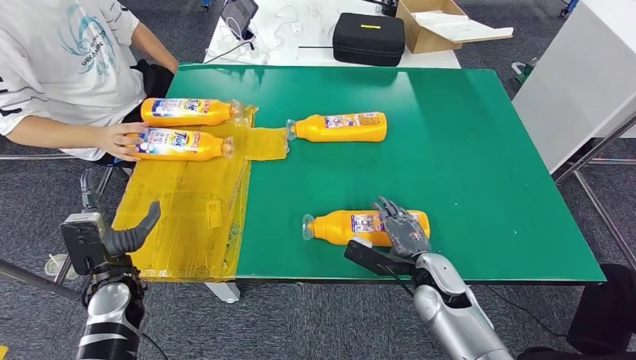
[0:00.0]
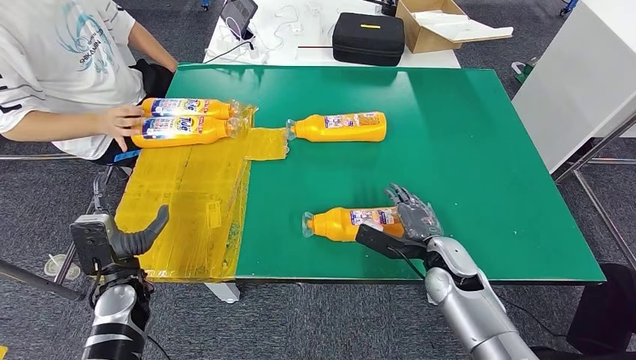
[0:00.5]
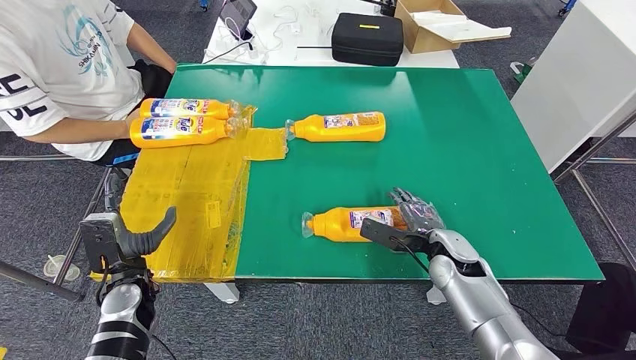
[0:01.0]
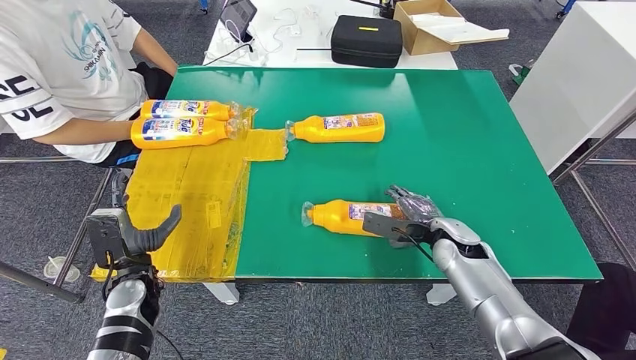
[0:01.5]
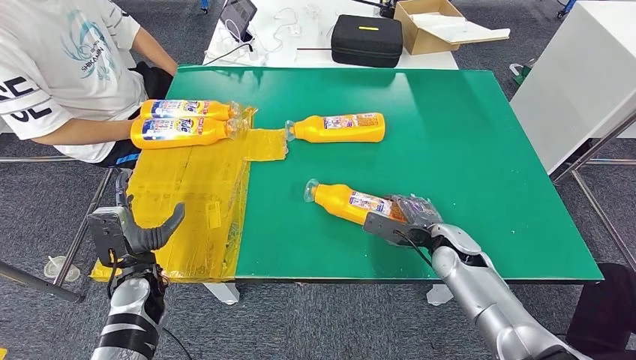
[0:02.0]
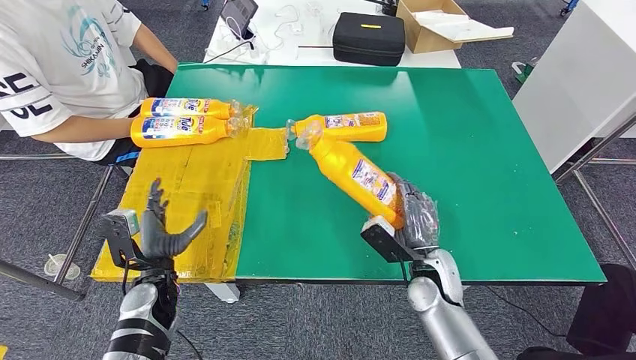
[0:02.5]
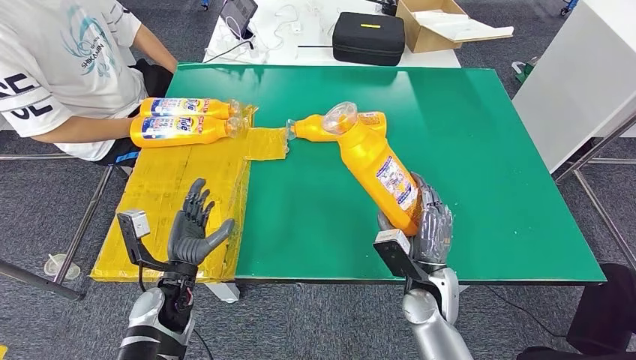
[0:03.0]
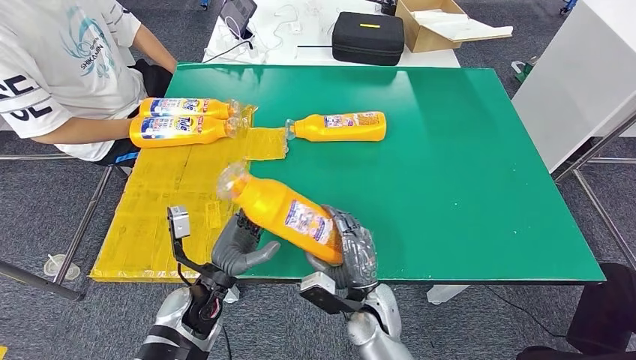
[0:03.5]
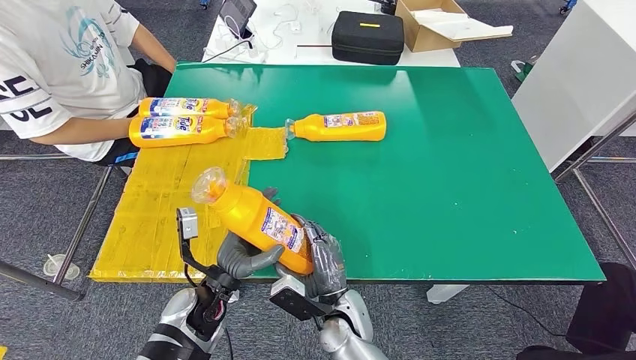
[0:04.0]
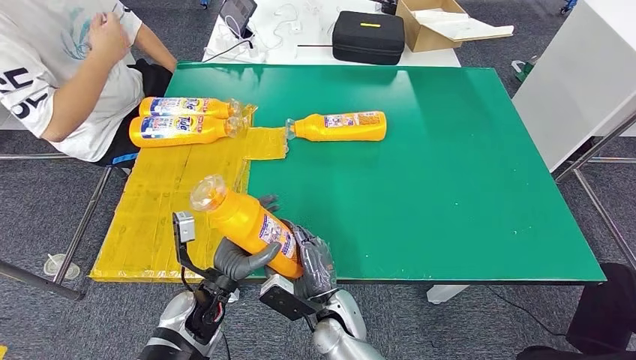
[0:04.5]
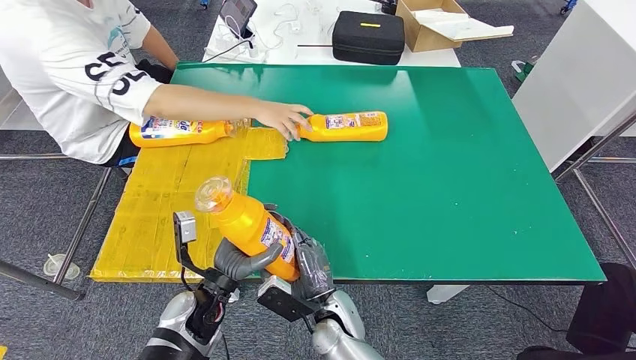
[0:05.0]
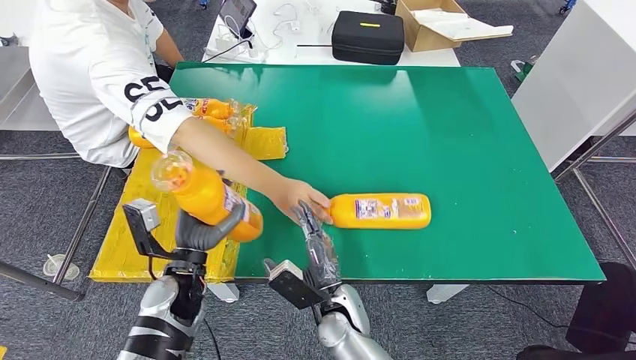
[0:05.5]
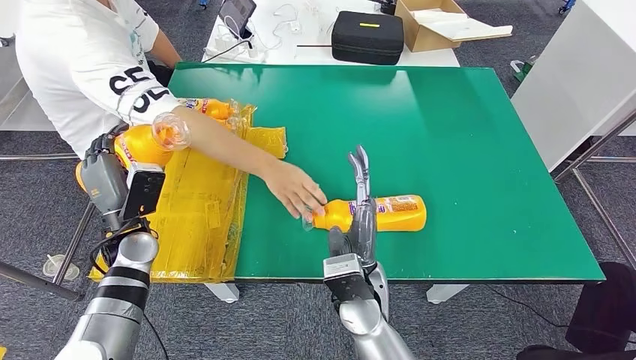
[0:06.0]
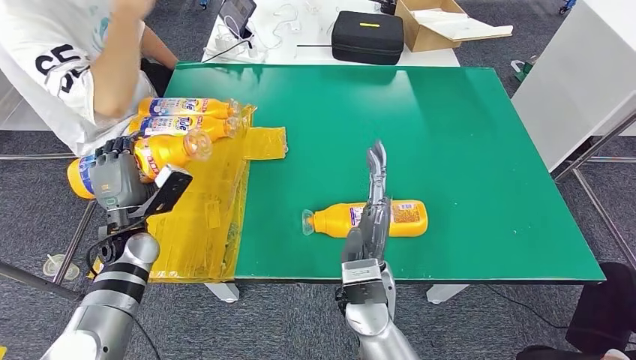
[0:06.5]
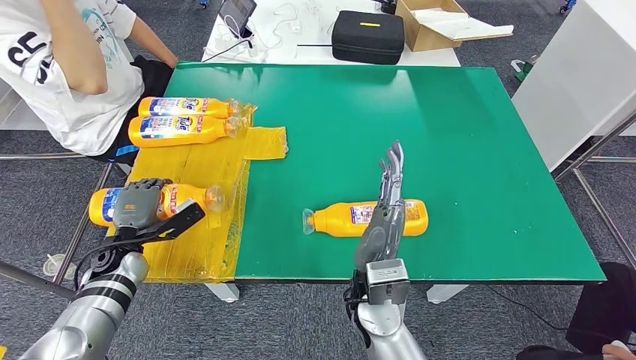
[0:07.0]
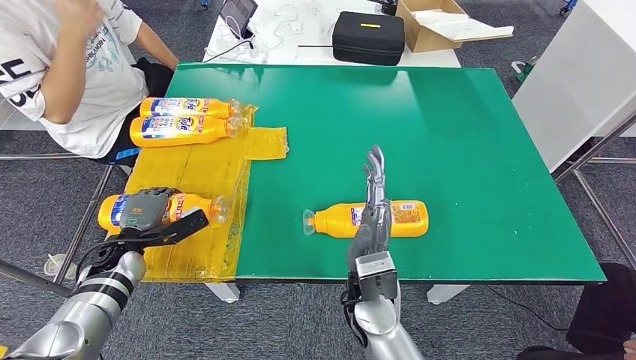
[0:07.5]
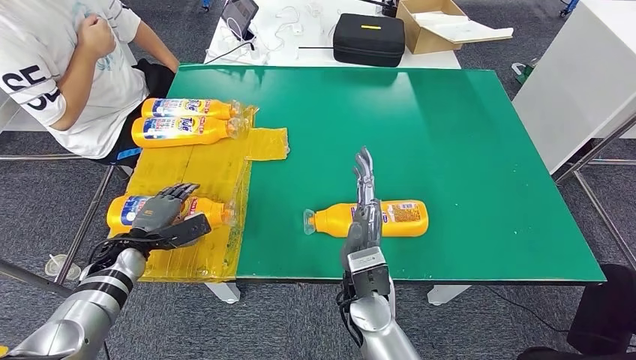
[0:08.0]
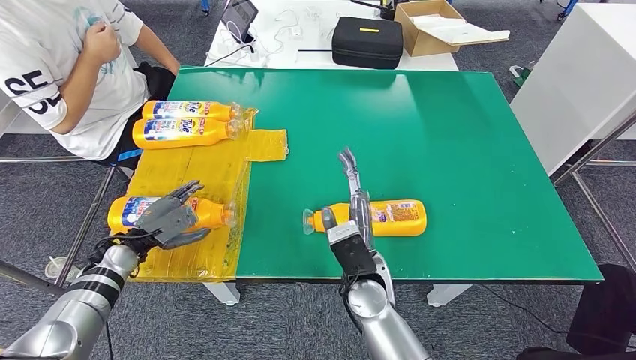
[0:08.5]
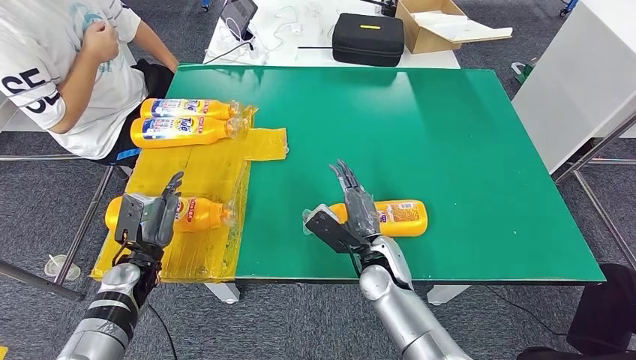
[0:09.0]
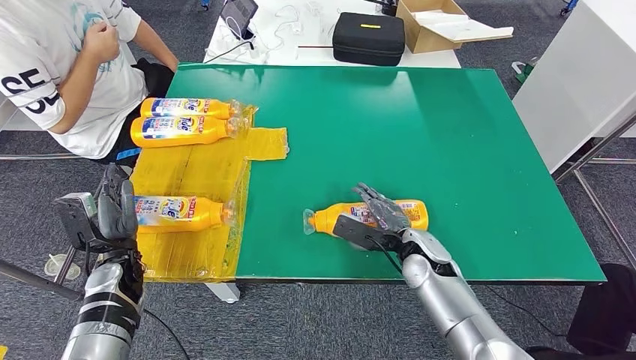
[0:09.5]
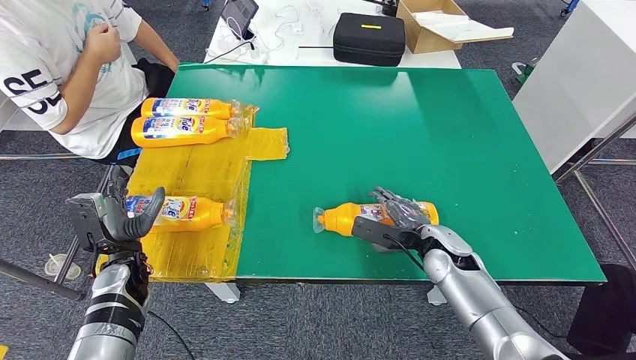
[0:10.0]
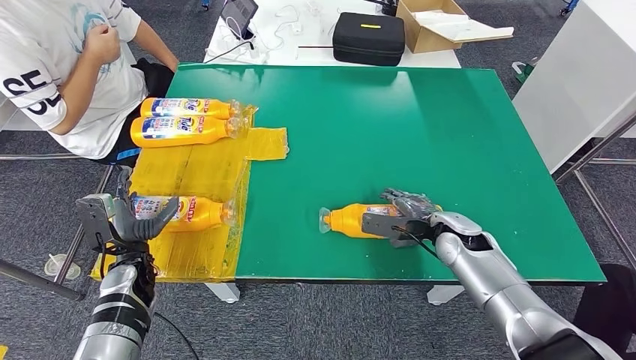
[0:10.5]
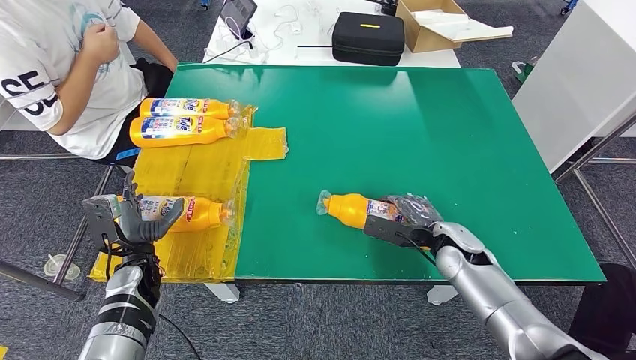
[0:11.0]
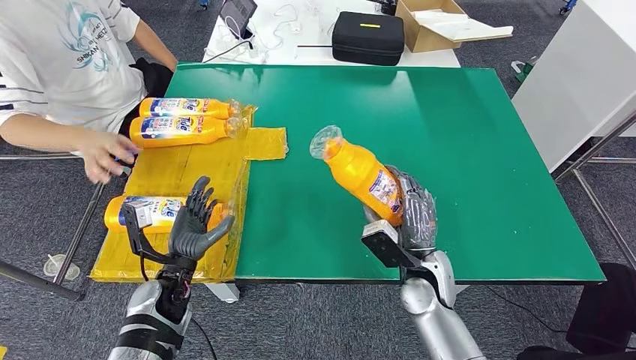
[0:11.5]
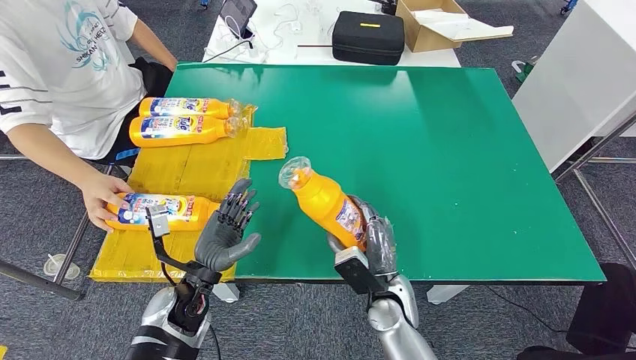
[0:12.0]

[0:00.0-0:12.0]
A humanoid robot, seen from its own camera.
Step, 0:00.0 to 0:03.0: Pick up the fast-moving consumer goods bottle from the table.
Step, 0:03.5 to 0:07.0: Flip the fast-moving consumer goods bottle to the front side.
Step, 0:07.5 to 0:11.0: Pick up the fast-moving consumer goods bottle from the table.
0:08.0 to 0:10.0: The right hand moves to the right and forward, about 20 cm; the left hand shifts by approximately 5 cm.

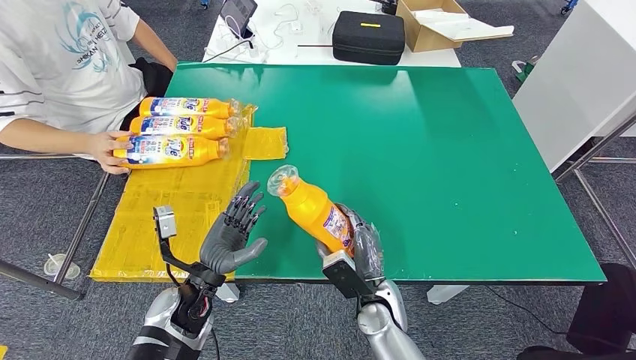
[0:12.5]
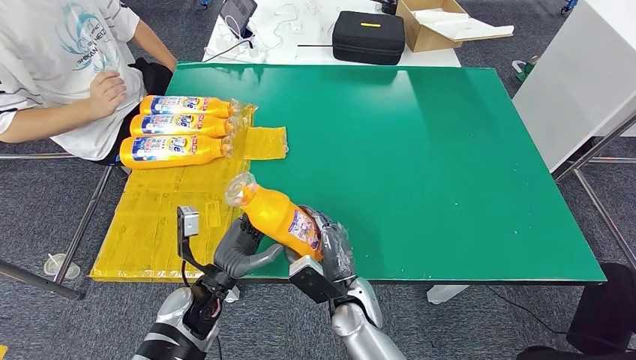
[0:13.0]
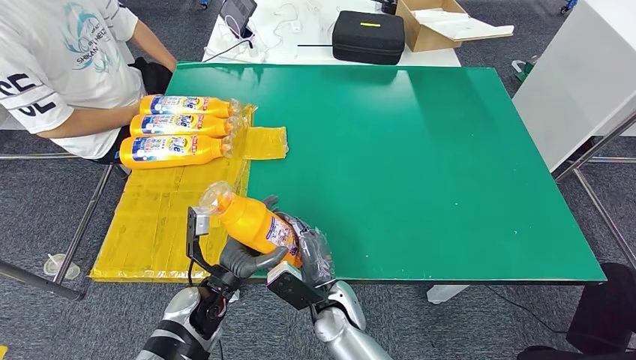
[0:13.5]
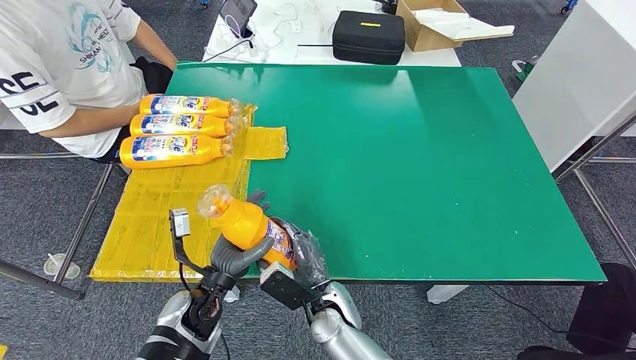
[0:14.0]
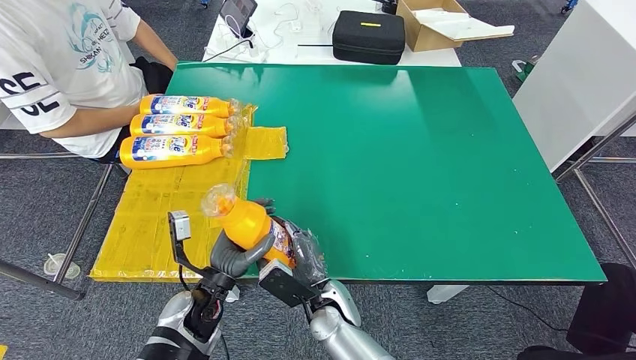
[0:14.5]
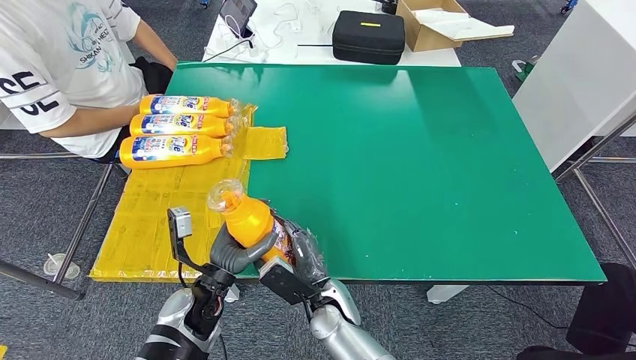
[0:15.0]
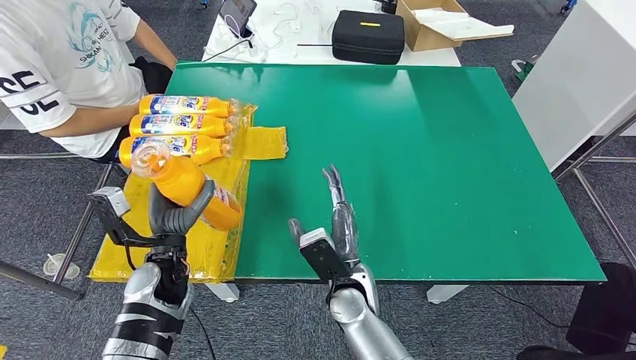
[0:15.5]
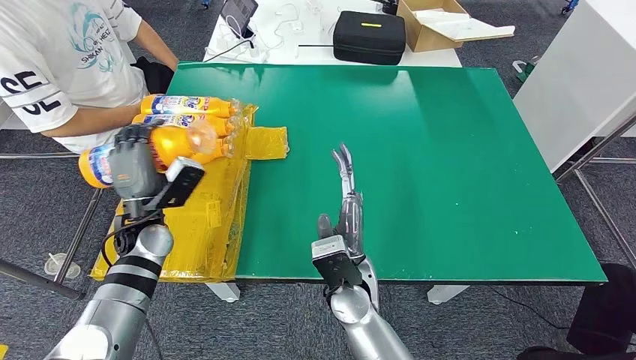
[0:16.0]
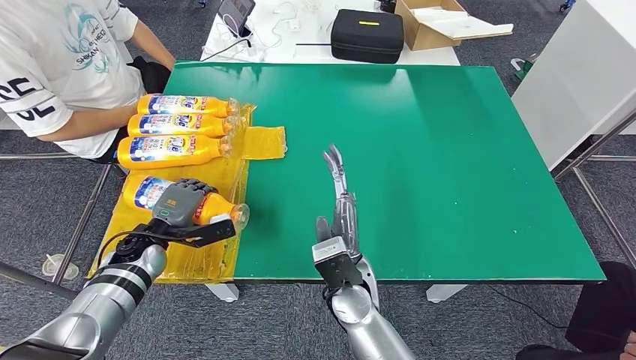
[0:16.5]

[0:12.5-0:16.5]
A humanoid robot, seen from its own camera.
Step, 0:12.5 to 0:16.5: Flip the fast-moving consumer goods bottle to the front side.
0:12.5 to 0:14.5: The right hand goes about 10 cm to the left.
